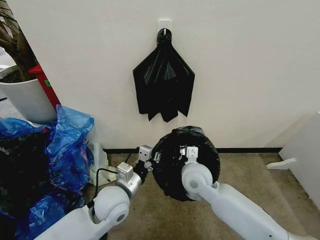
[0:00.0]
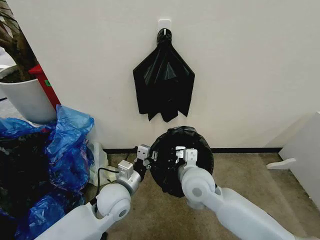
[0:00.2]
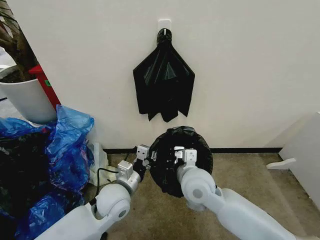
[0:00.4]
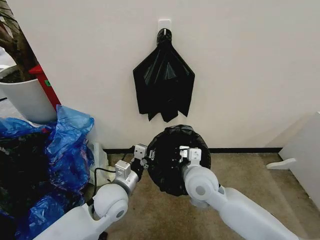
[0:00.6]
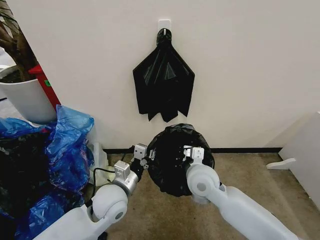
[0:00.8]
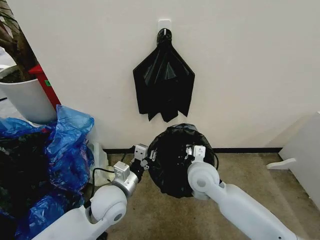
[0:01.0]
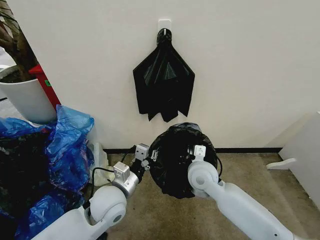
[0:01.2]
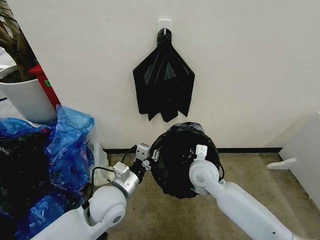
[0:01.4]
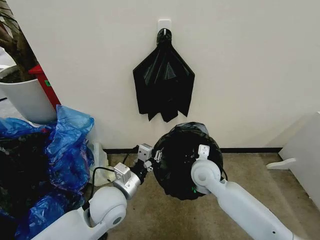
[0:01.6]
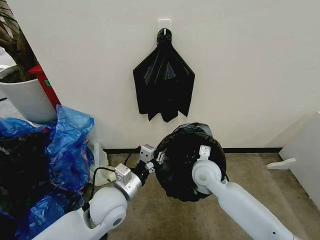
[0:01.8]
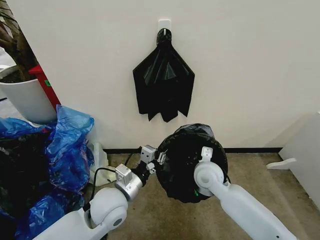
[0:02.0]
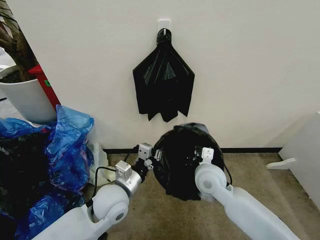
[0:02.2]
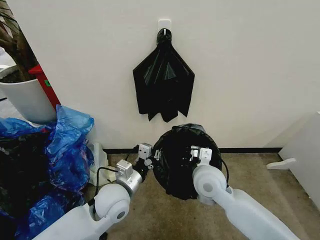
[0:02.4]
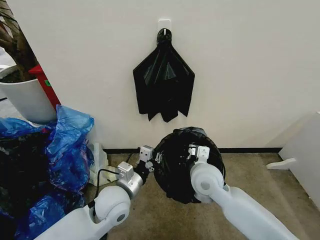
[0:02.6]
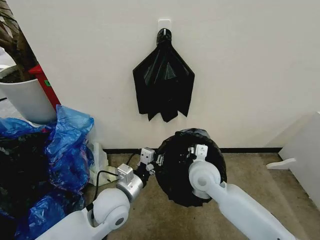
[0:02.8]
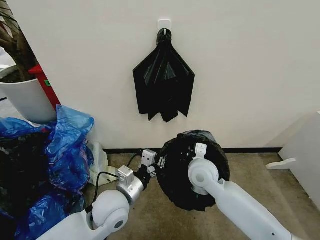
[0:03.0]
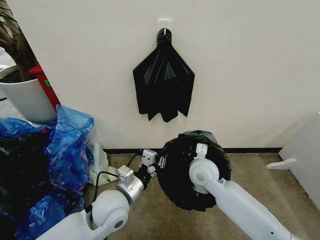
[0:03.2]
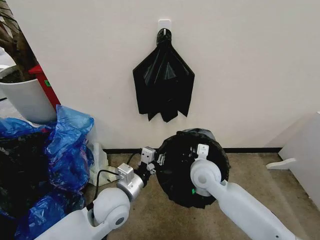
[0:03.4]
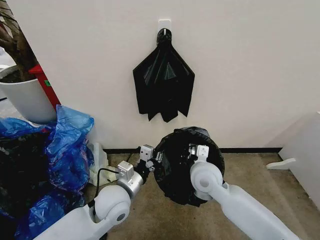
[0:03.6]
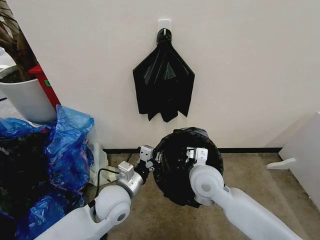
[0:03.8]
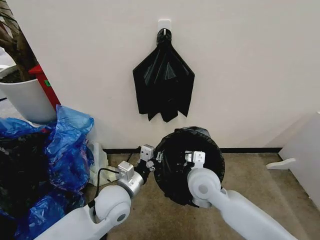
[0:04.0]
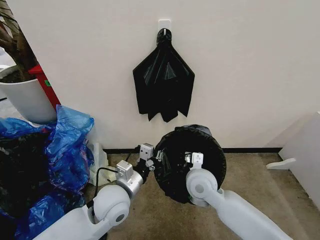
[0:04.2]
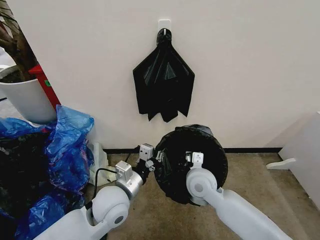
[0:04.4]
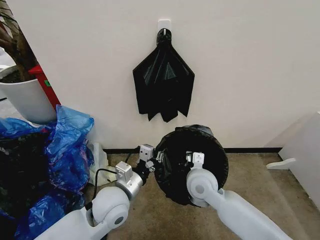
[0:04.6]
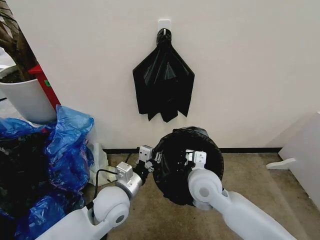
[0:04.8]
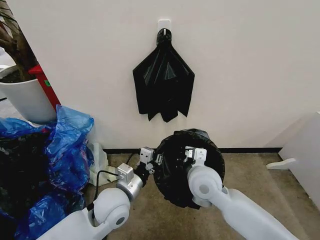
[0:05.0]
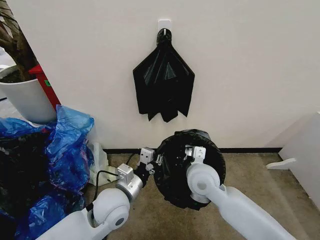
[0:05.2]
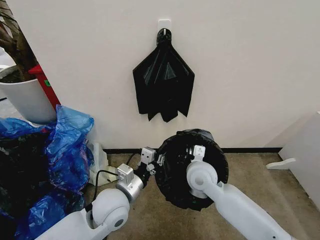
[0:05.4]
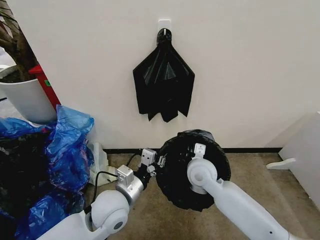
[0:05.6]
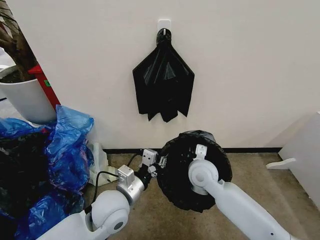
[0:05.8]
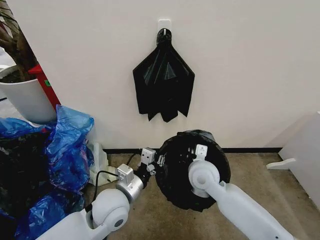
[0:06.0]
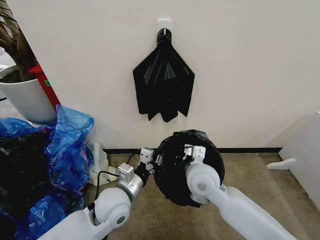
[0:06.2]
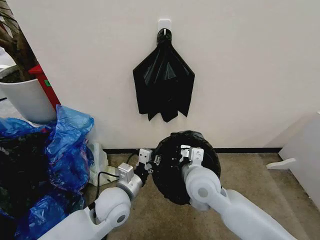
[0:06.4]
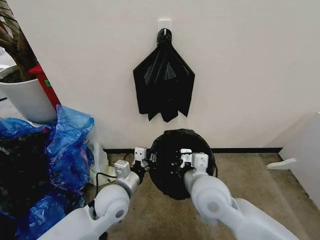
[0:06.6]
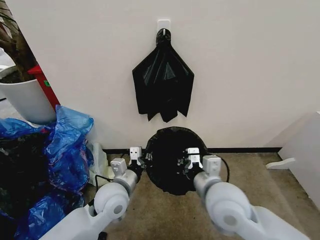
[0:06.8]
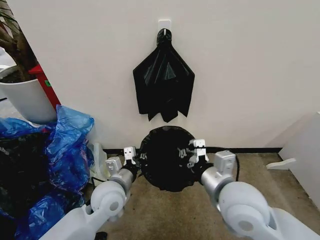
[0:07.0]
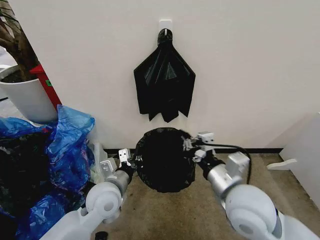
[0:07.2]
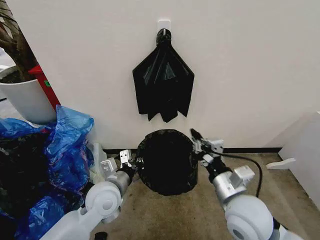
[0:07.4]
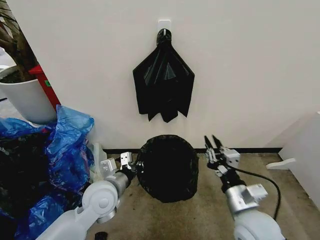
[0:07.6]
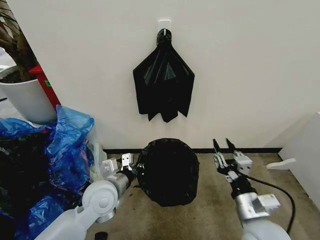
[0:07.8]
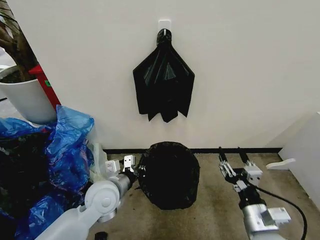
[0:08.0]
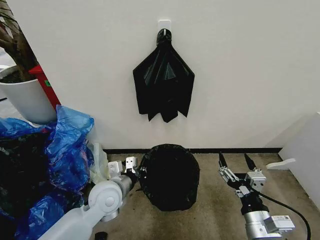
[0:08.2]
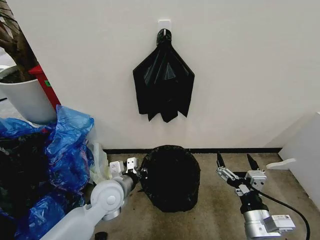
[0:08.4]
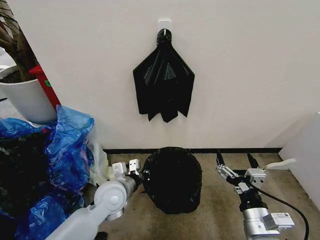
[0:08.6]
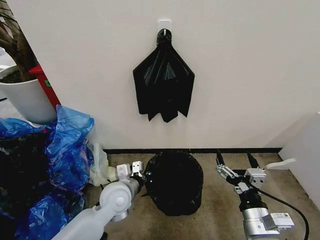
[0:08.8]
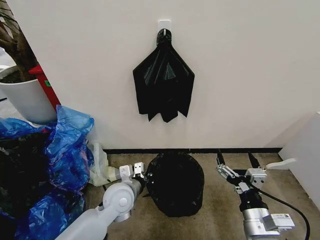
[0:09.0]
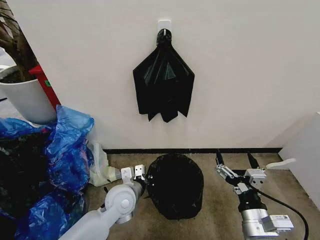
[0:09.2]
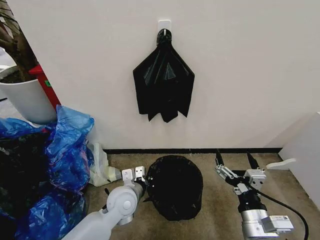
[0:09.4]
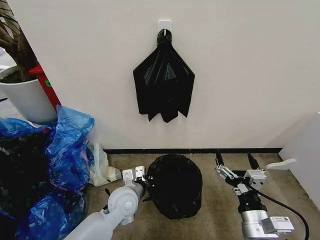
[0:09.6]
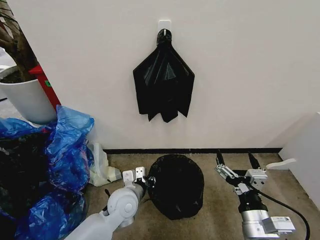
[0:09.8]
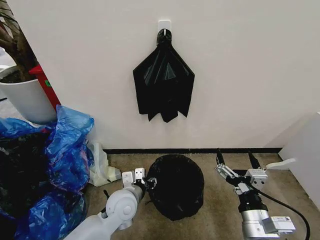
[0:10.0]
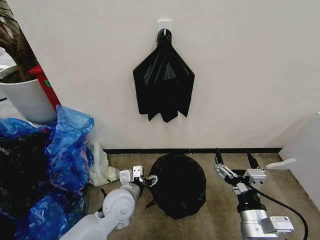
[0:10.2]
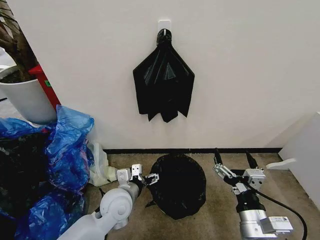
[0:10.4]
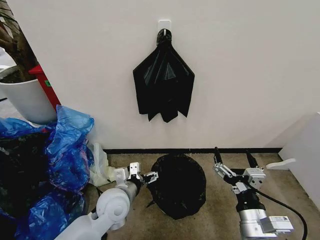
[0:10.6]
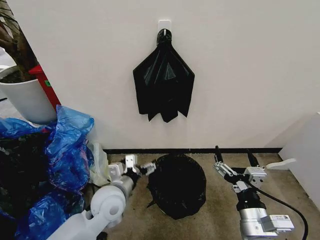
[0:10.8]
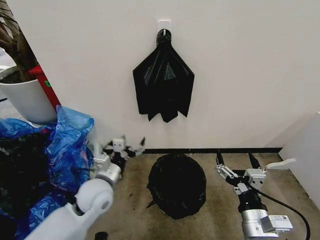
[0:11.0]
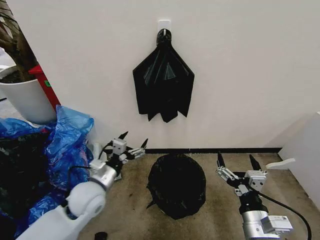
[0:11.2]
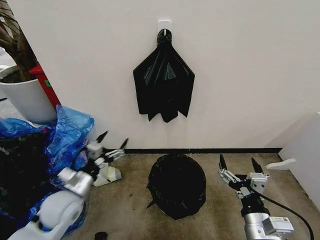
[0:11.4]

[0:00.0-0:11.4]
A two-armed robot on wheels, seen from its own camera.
Task of the whole recording: Place the garbage bag over the trash bin.
0:00.0 to 0:05.6: The grippers make only small movements.
0:05.6 to 0:07.2: The right gripper shifts some 20 cm backward, upward and to the right.
0:07.2 to 0:08.6: The right gripper is displaced downward, backward and to the right by about 15 cm, and opens up.
0:08.6 to 0:10.0: The left gripper changes place by approximately 5 cm, and opens up.
0:10.0 to 0:11.4: The left gripper is displaced to the left by some 10 cm, and opens.

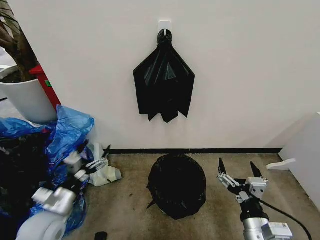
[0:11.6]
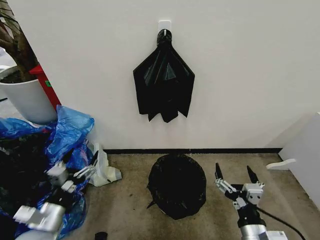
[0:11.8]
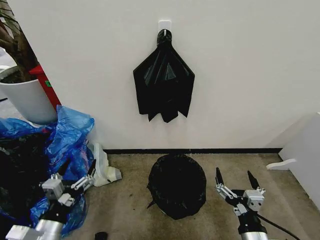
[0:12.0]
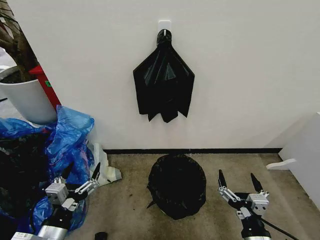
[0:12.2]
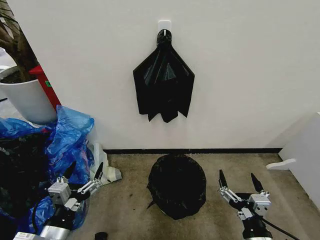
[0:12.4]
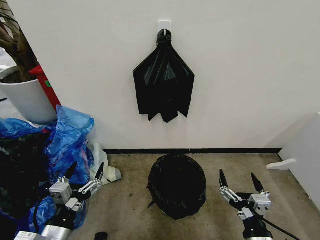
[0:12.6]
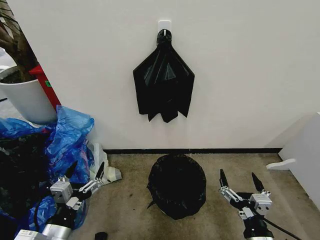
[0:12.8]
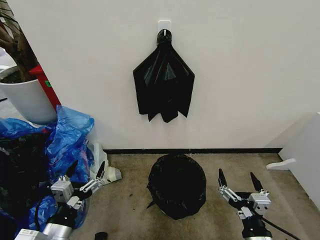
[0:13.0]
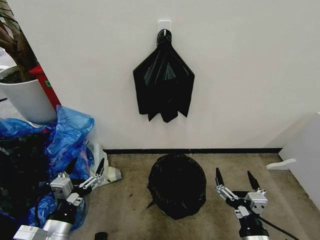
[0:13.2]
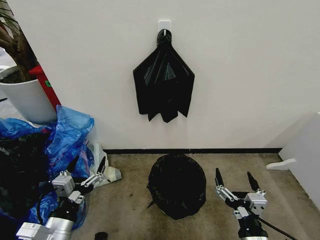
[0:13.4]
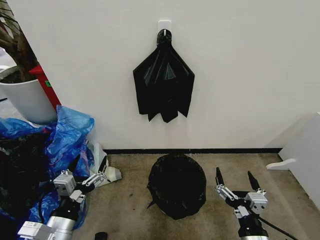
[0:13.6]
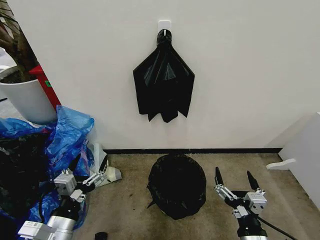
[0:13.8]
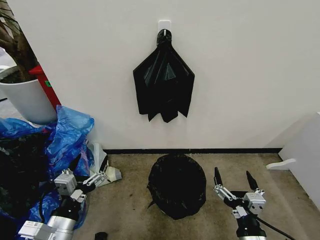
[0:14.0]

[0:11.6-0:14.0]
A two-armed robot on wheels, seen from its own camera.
Task of the whole recording: Place the garbage bag over the trash bin.
0:11.6 to 0:12.8: The right gripper shifts by about 5 cm; the left gripper heads backward, covering some 15 cm.
0:12.8 to 0:14.0: The grippers make only small movements.
